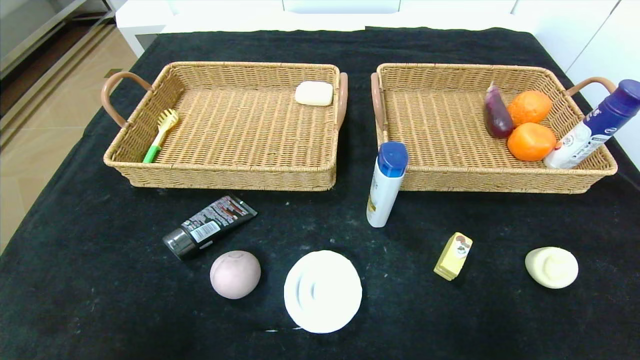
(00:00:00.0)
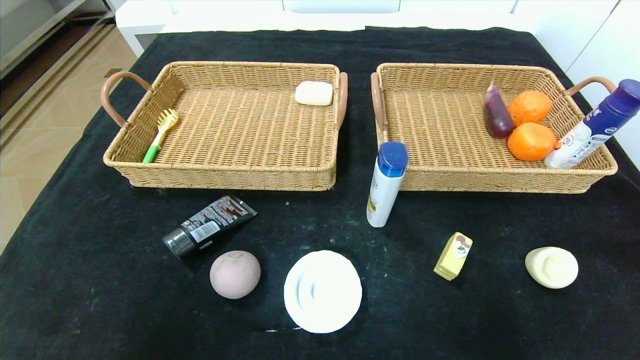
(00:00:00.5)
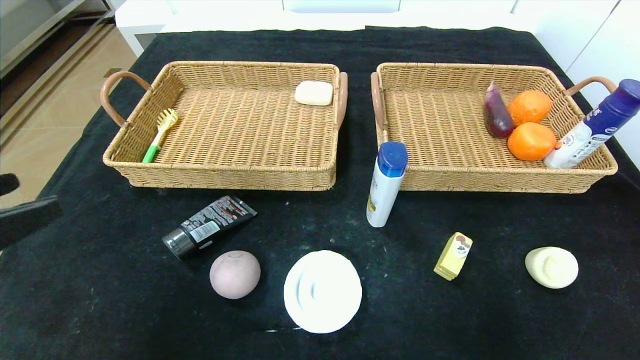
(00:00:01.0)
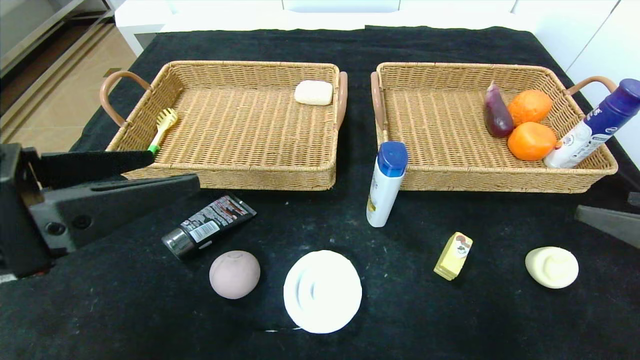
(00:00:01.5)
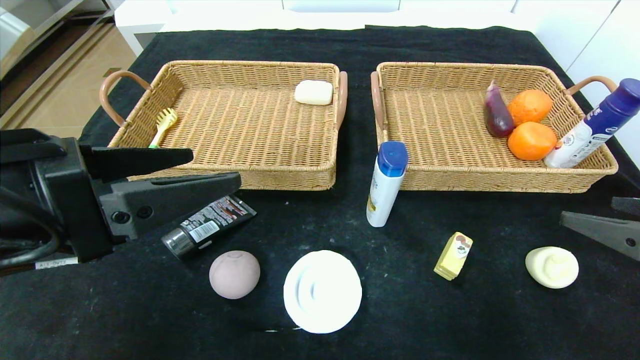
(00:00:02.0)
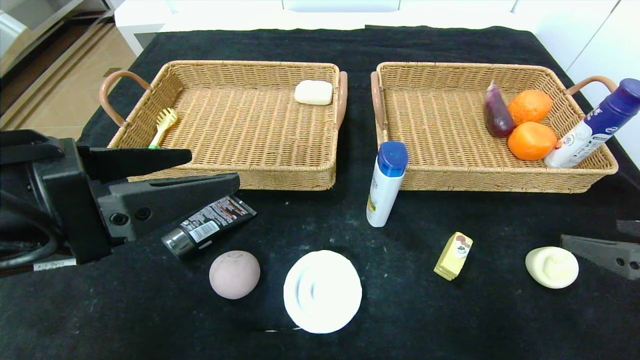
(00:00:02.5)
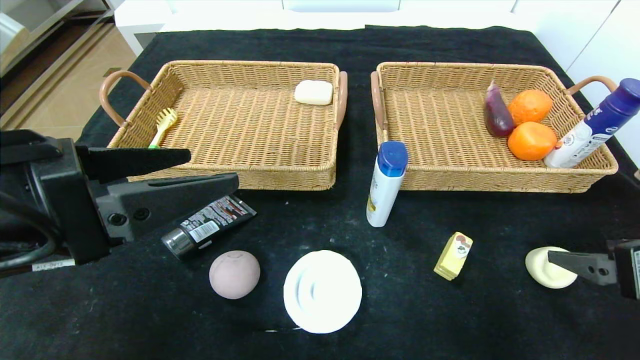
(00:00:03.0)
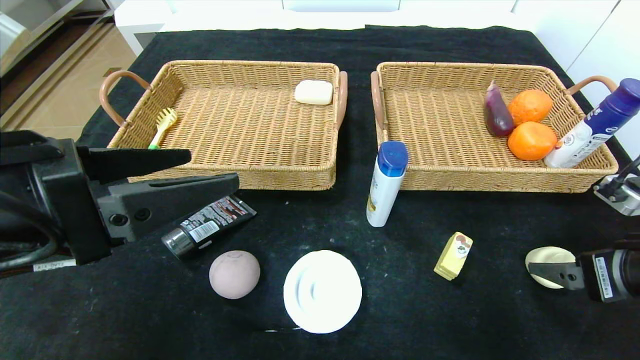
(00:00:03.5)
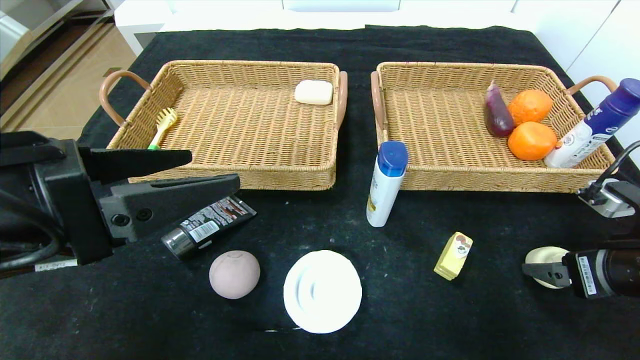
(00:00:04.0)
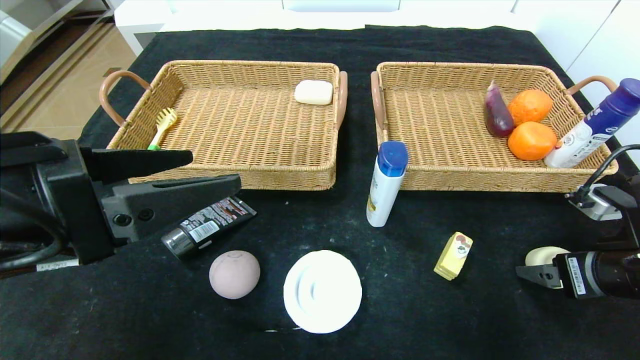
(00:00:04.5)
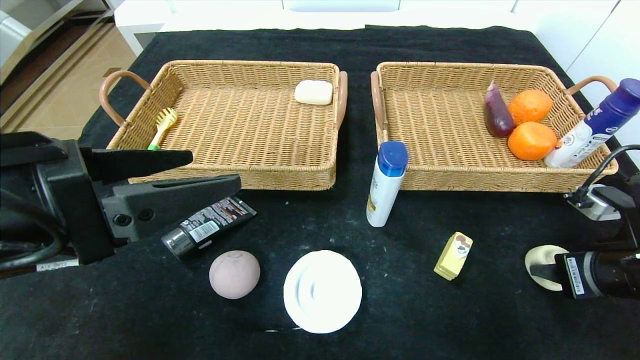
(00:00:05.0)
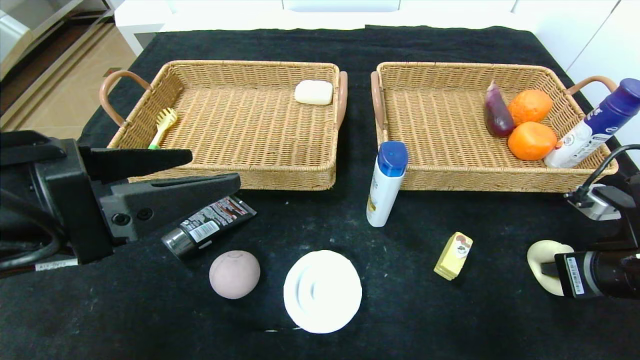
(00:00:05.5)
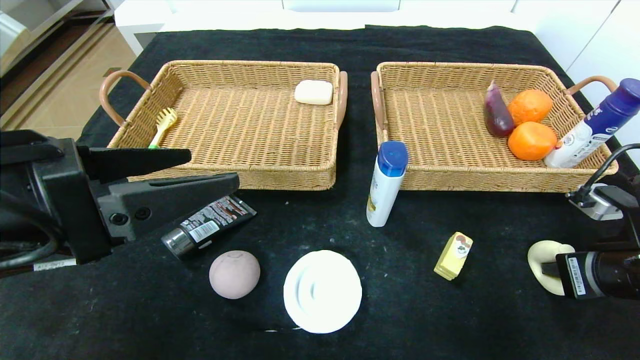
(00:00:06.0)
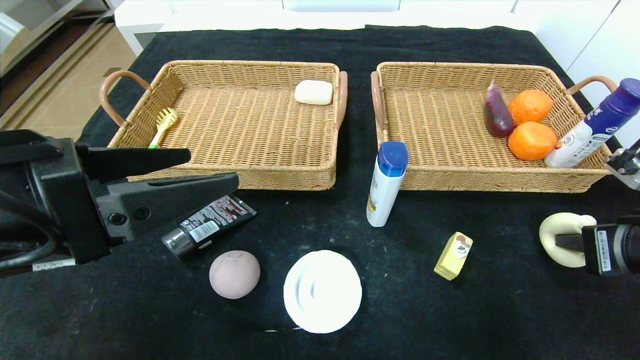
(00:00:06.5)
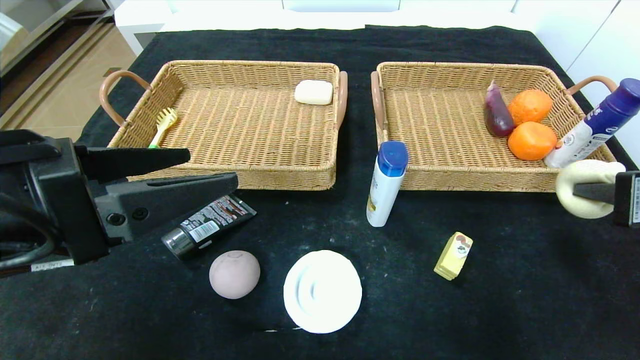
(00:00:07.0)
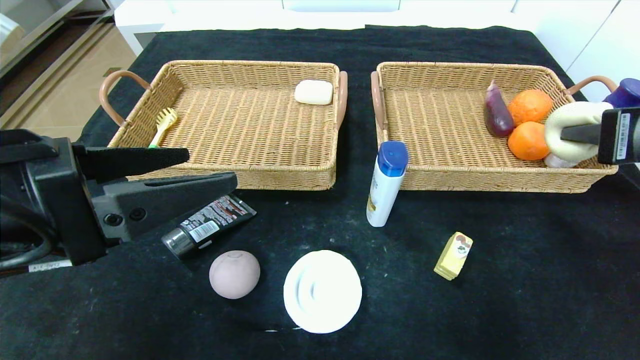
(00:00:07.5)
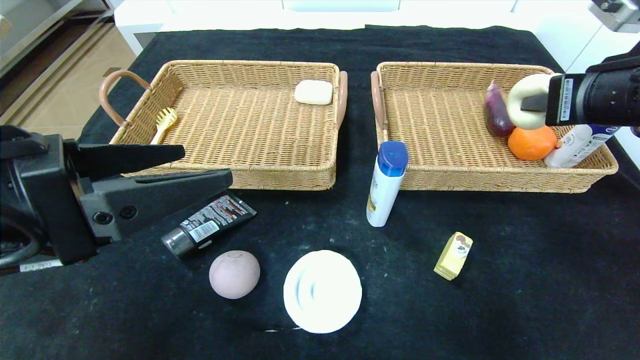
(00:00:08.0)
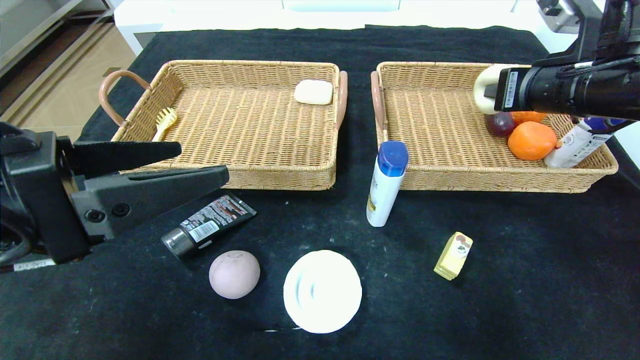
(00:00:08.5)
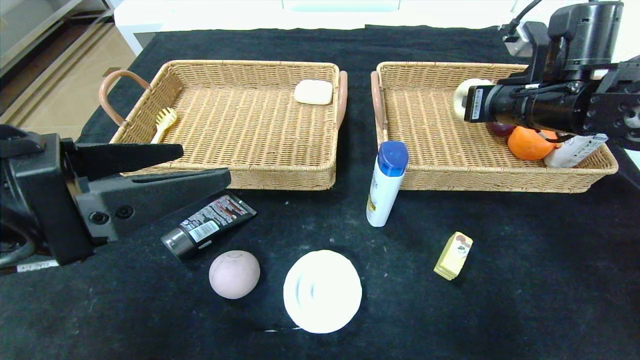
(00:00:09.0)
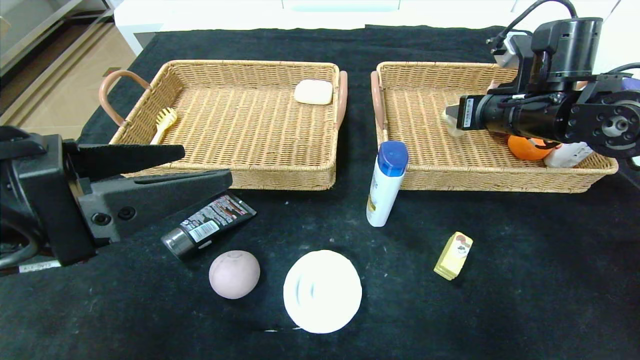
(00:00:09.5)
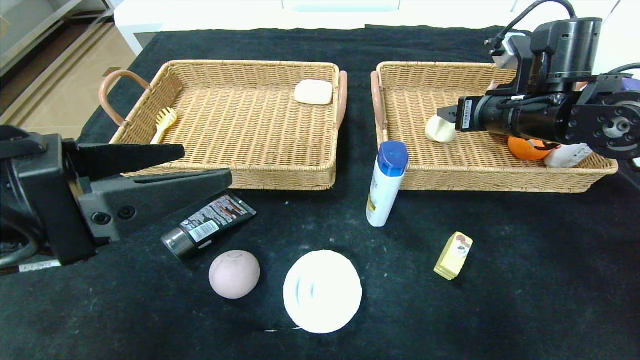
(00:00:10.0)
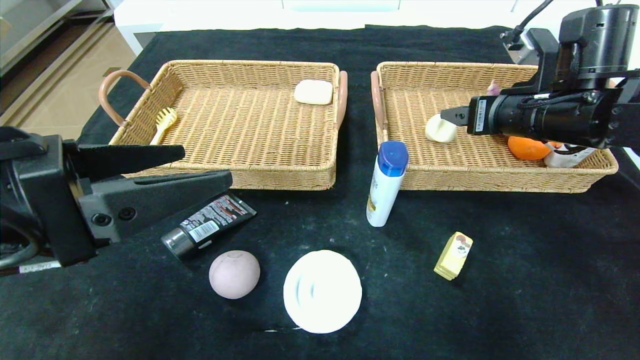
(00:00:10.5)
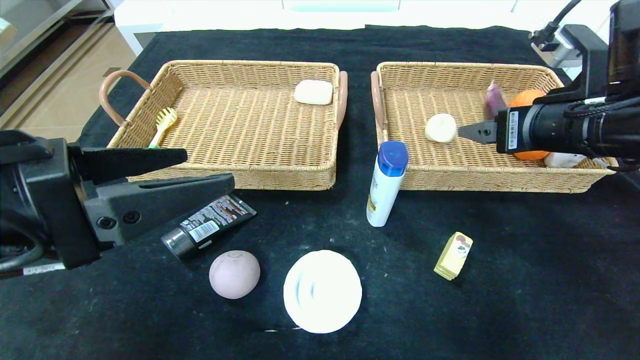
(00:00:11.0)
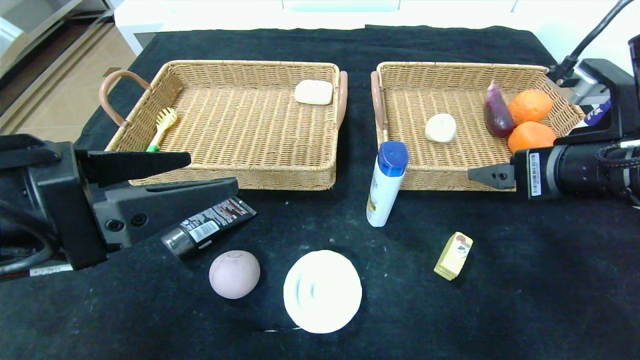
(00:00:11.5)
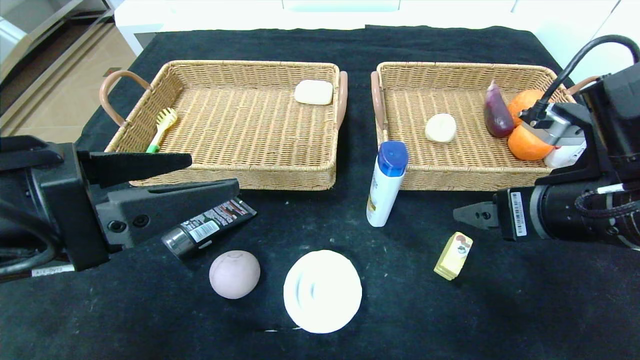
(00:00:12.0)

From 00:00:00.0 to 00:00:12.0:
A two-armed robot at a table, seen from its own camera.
Step, from 00:00:00.0 to 00:00:09.5: Grasp the peach and put it in the right basket.
From 00:00:00.0 to 00:00:02.0: The right gripper shifts some 20 cm forward and upward, while the left gripper moves forward, upward and to the right, some 25 cm.
From 00:00:02.0 to 00:00:04.0: The right gripper shifts about 10 cm downward and forward.
From 00:00:04.0 to 00:00:06.0: The right gripper closes up.
From 00:00:06.0 to 00:00:08.0: The right gripper is displaced upward and forward by some 15 cm.
From 00:00:08.0 to 00:00:10.0: The right gripper travels forward by some 10 cm, and opens its fingers.
From 00:00:10.0 to 00:00:12.0: The right gripper goes some 15 cm backward.

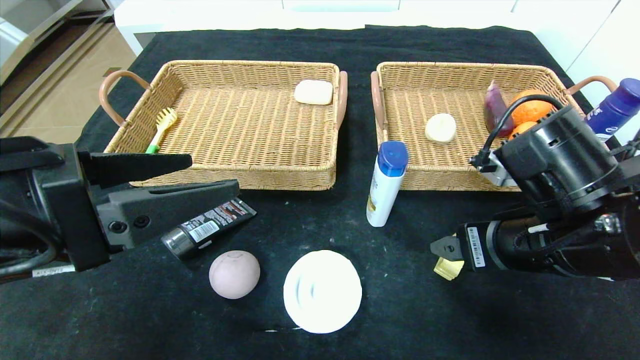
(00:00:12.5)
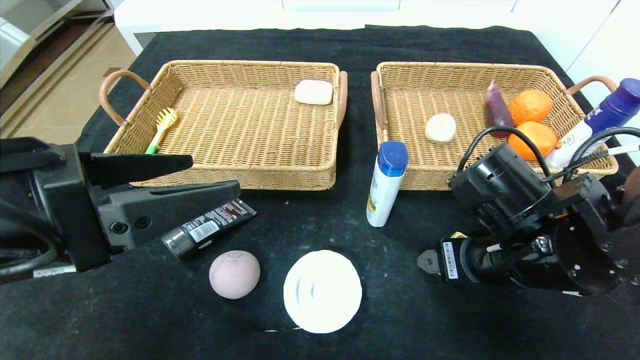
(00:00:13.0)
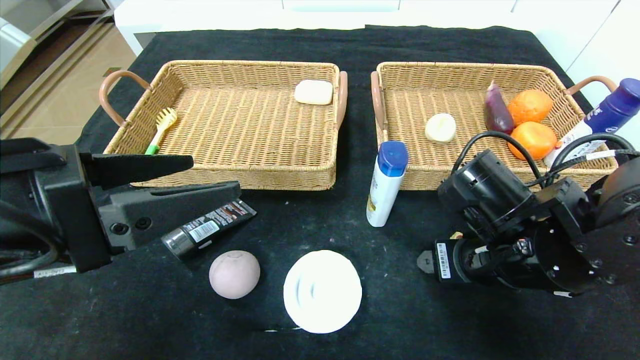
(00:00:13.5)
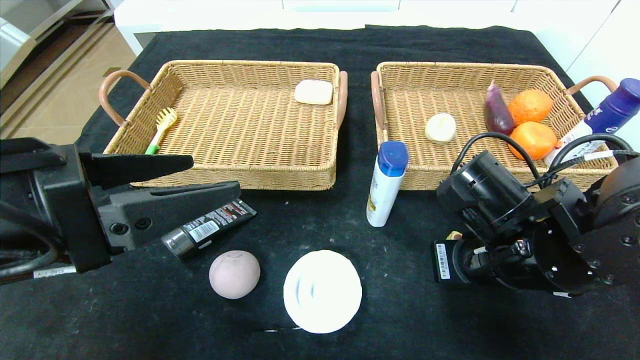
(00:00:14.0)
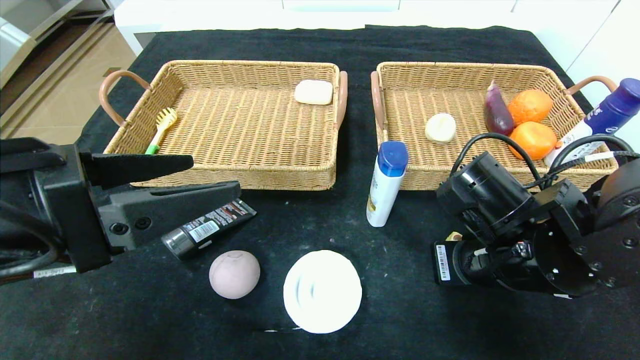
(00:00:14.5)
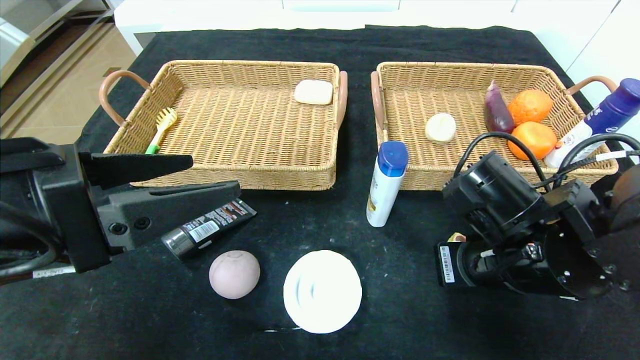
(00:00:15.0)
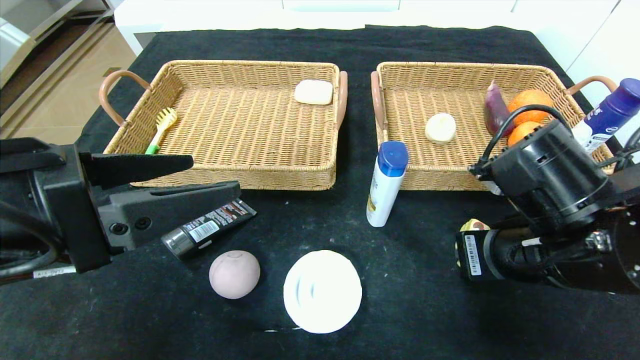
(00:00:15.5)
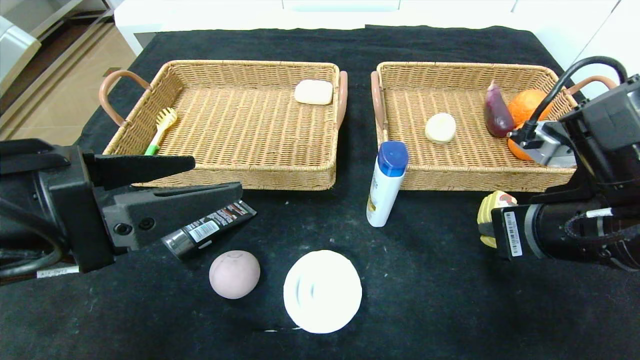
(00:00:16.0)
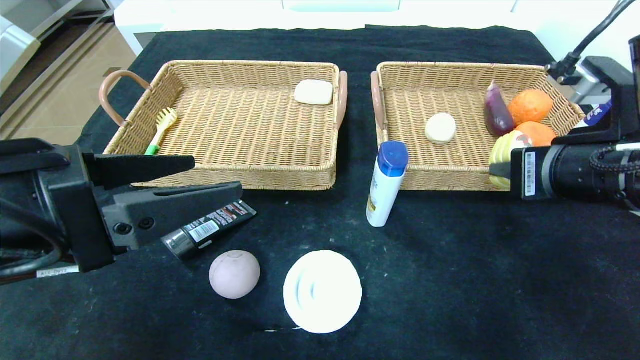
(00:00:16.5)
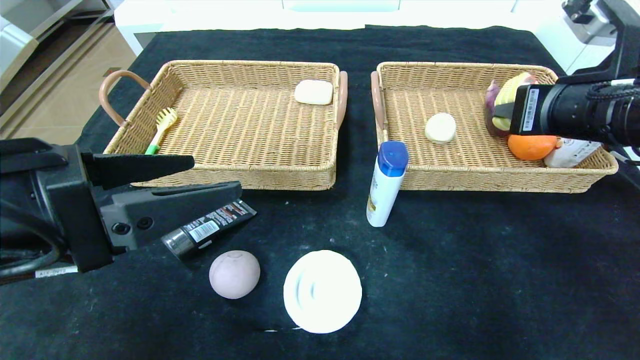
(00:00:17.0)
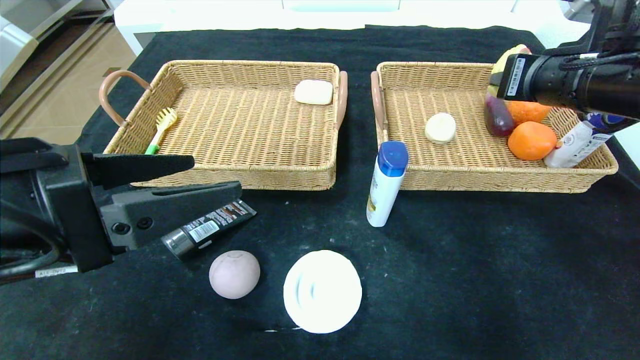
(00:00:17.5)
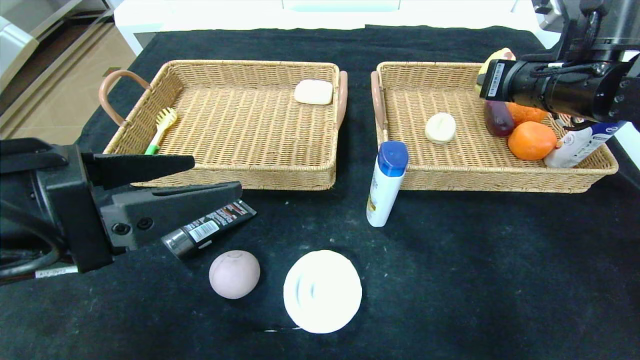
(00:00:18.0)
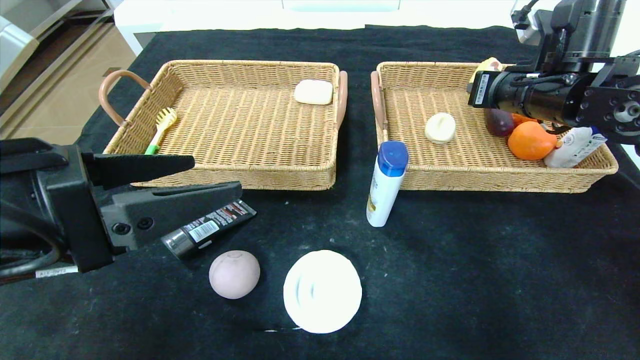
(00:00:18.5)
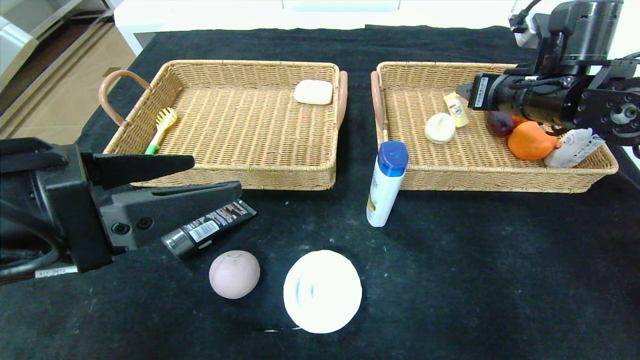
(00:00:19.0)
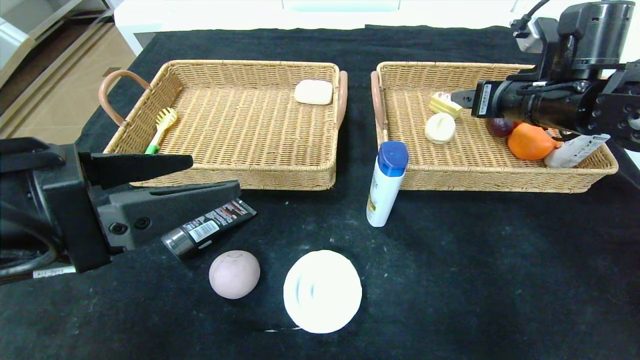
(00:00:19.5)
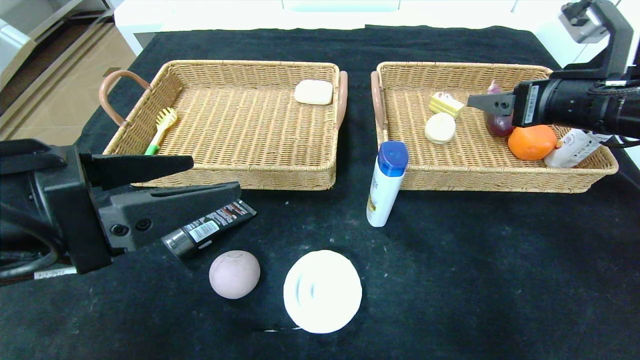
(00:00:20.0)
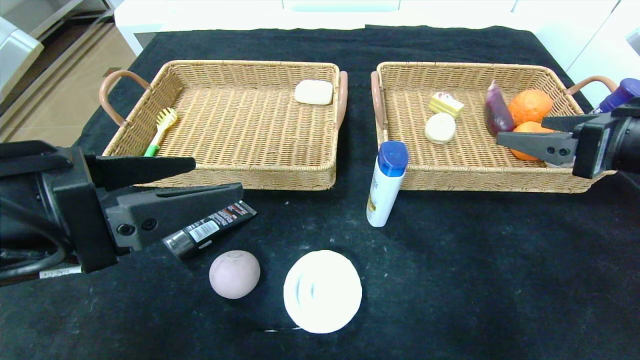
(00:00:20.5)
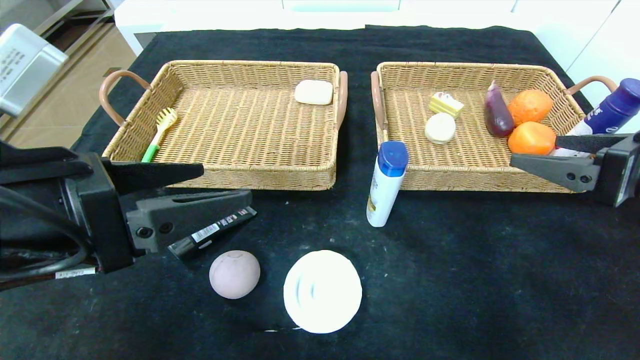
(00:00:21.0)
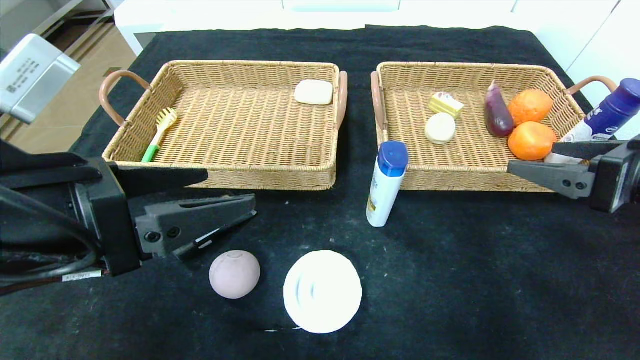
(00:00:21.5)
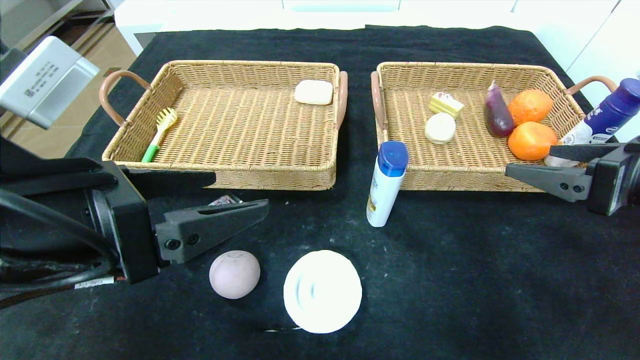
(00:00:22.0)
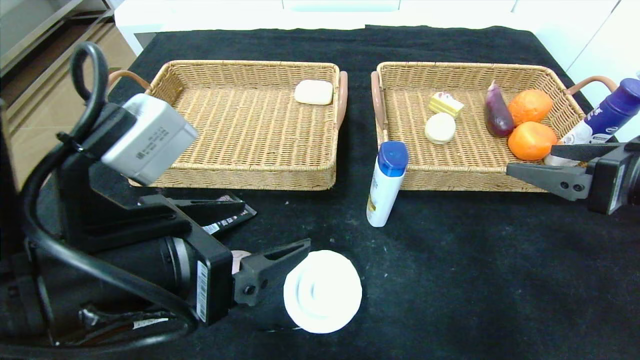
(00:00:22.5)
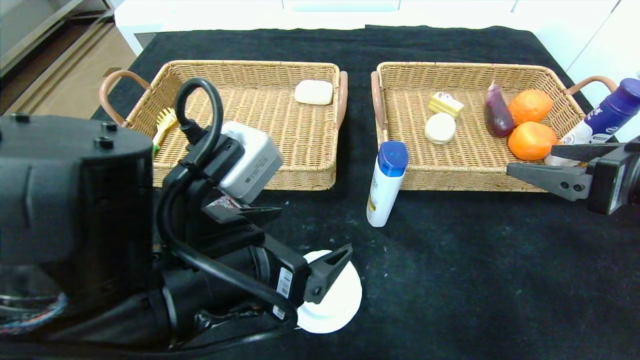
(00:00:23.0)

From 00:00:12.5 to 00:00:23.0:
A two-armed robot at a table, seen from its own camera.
Step, from 00:00:12.5 to 00:00:19.0: Grasp the yellow cake and put it in the right basket.
From 00:00:12.5 to 00:00:14.5: The right gripper closes.
From 00:00:14.5 to 00:00:16.5: The right gripper heads upward and to the right, covering about 10 cm.
From 00:00:16.5 to 00:00:19.0: The right gripper heads forward, covering roughly 15 cm, and opens up.
From 00:00:19.0 to 00:00:21.0: The right gripper travels backward by about 20 cm.
From 00:00:21.0 to 00:00:23.0: The left gripper moves to the right, some 10 cm.
